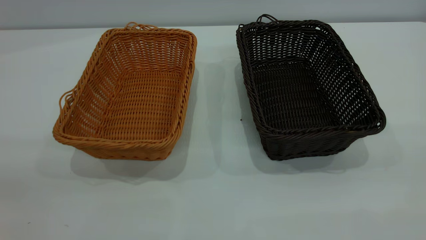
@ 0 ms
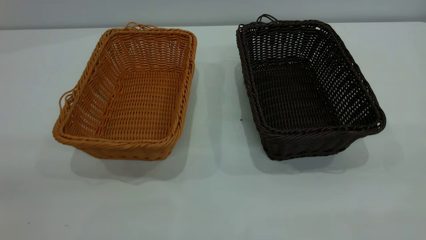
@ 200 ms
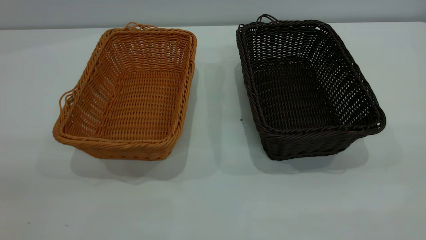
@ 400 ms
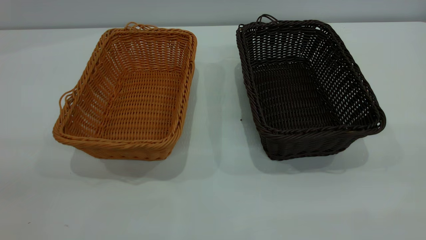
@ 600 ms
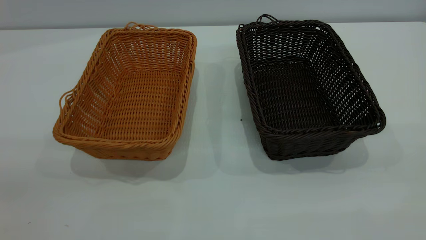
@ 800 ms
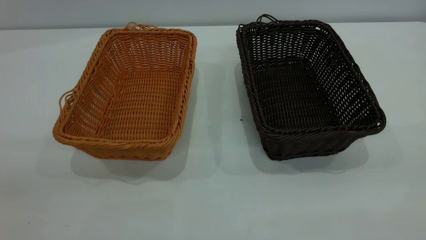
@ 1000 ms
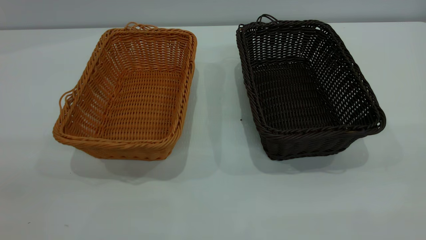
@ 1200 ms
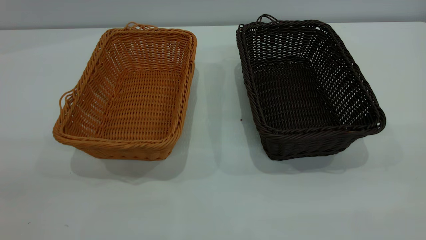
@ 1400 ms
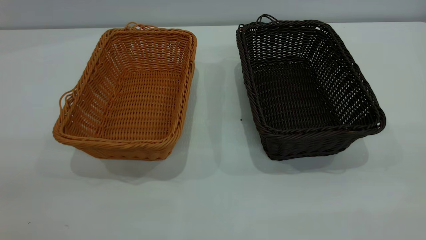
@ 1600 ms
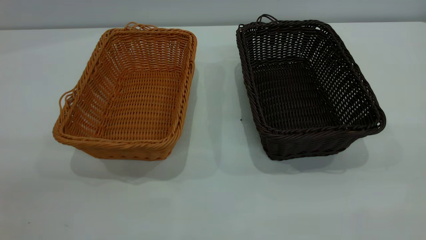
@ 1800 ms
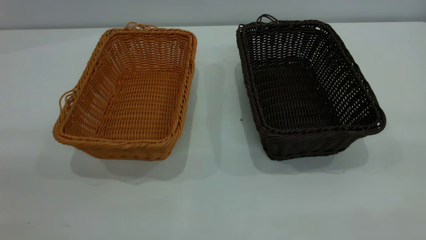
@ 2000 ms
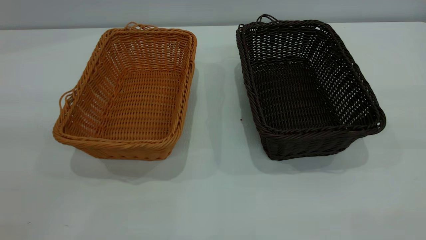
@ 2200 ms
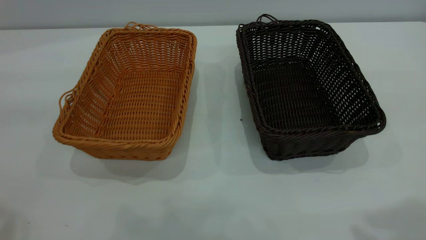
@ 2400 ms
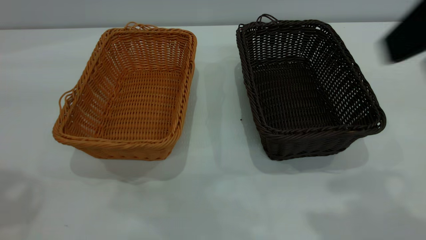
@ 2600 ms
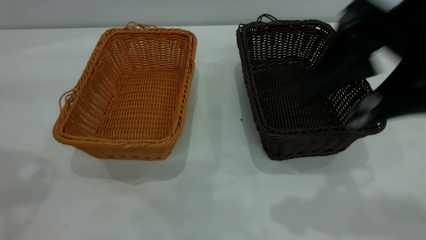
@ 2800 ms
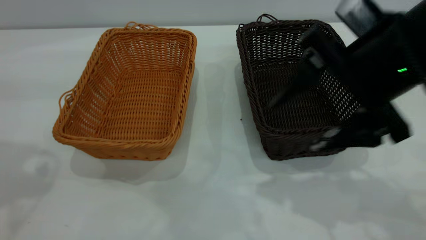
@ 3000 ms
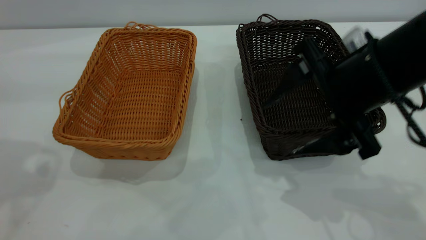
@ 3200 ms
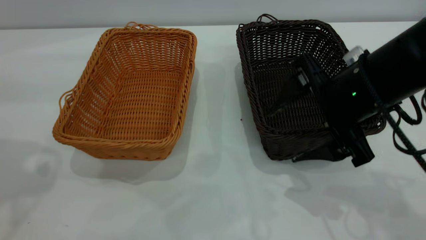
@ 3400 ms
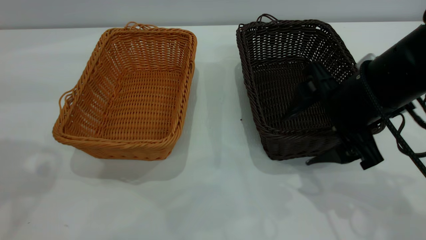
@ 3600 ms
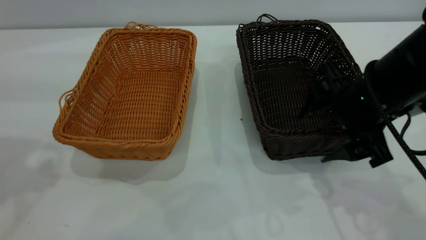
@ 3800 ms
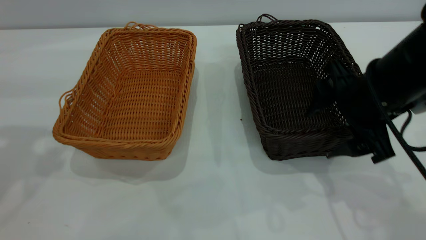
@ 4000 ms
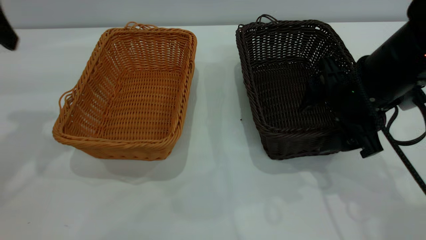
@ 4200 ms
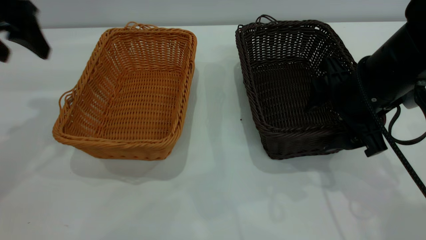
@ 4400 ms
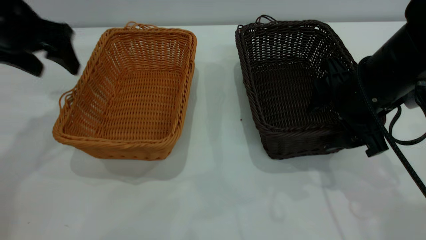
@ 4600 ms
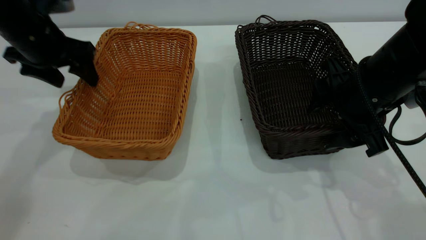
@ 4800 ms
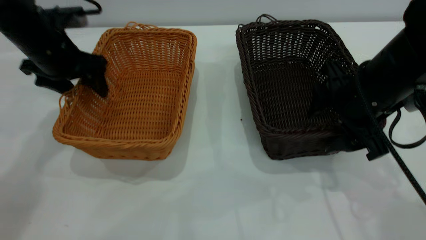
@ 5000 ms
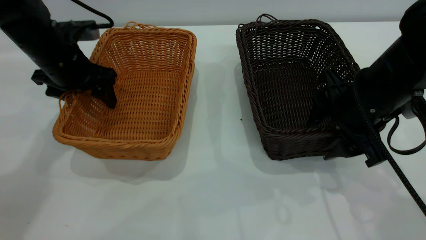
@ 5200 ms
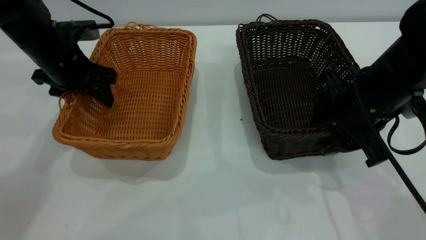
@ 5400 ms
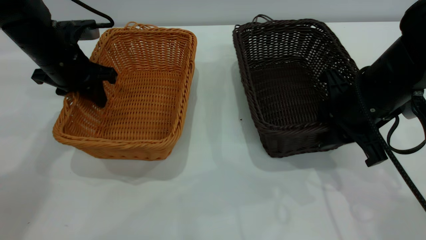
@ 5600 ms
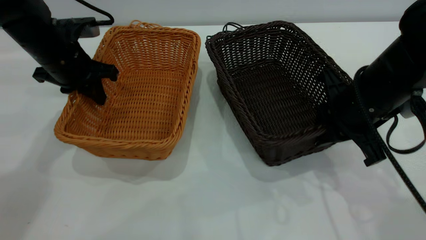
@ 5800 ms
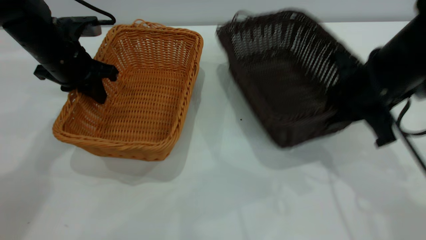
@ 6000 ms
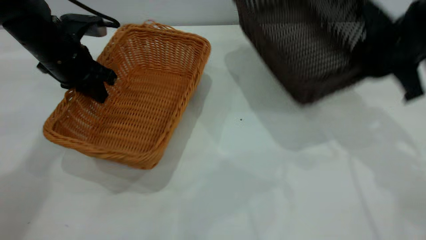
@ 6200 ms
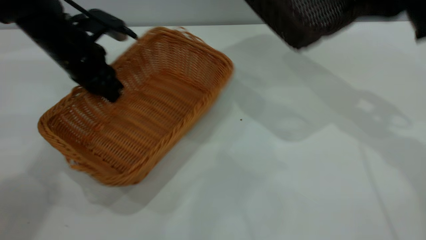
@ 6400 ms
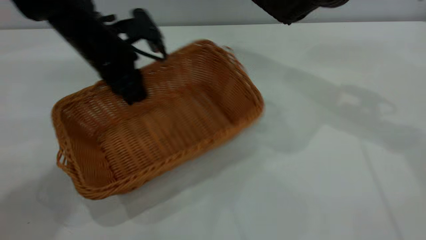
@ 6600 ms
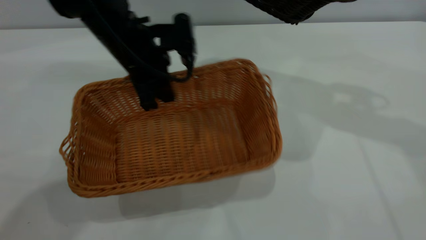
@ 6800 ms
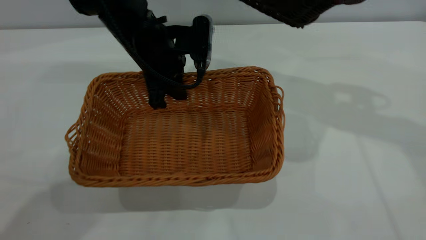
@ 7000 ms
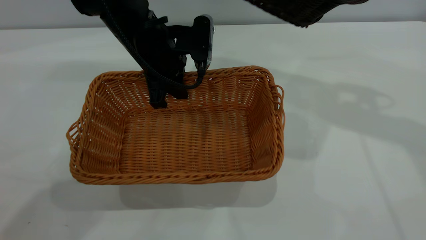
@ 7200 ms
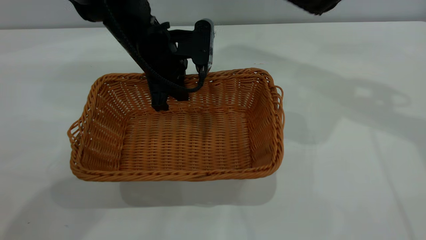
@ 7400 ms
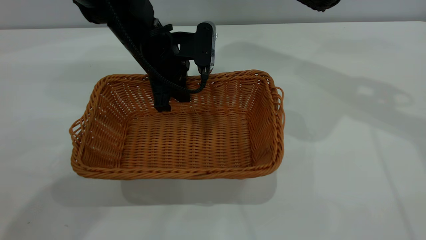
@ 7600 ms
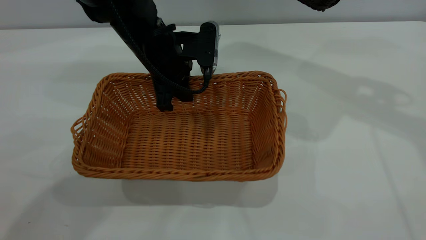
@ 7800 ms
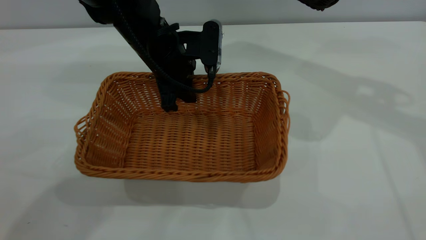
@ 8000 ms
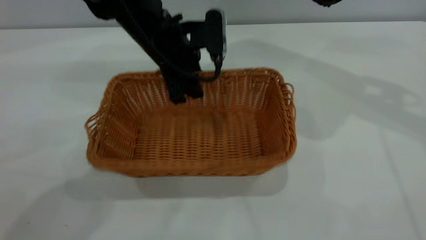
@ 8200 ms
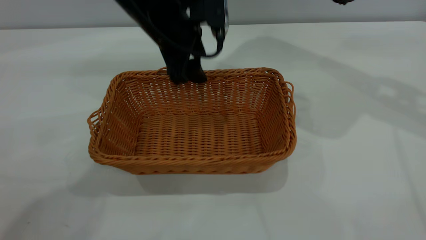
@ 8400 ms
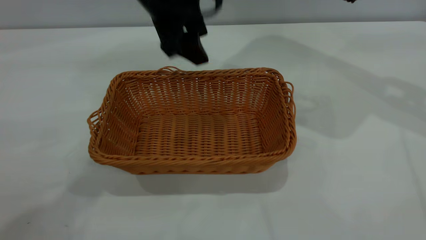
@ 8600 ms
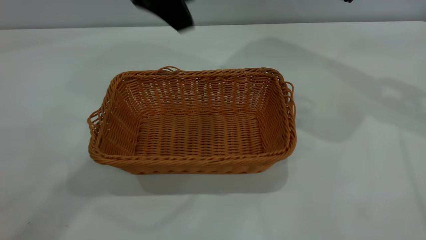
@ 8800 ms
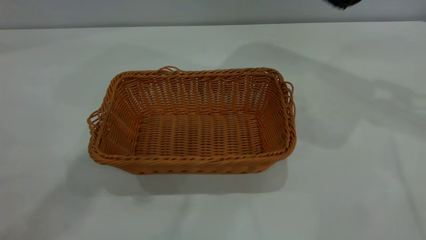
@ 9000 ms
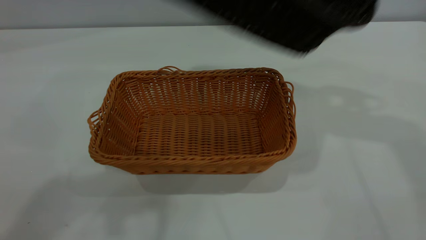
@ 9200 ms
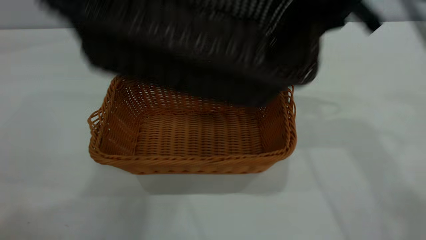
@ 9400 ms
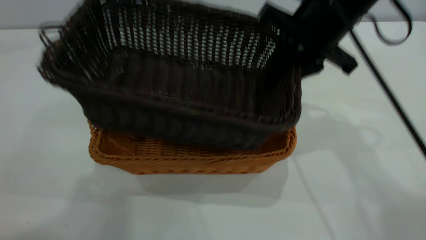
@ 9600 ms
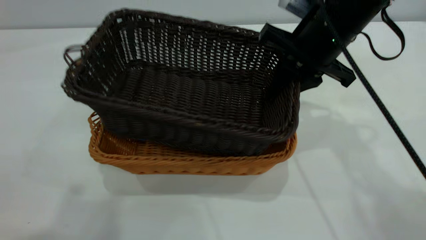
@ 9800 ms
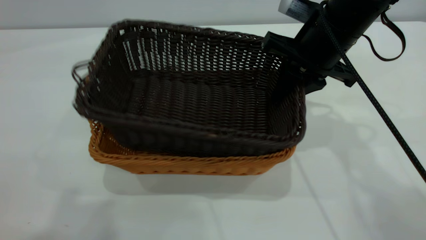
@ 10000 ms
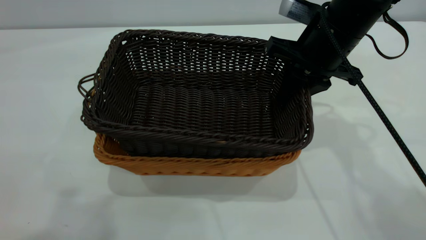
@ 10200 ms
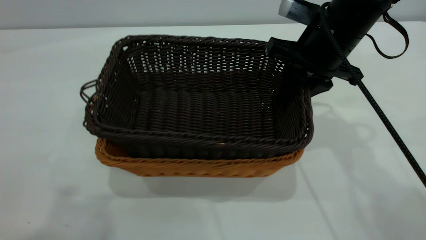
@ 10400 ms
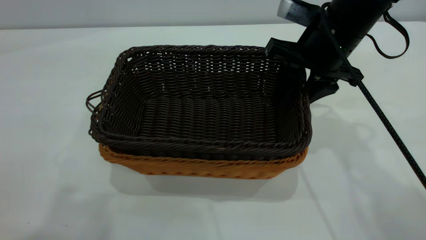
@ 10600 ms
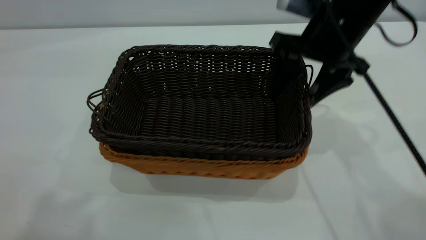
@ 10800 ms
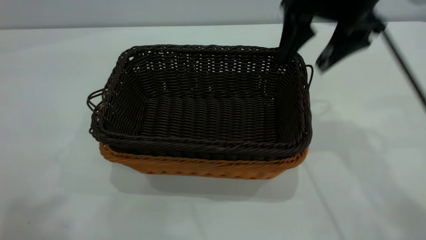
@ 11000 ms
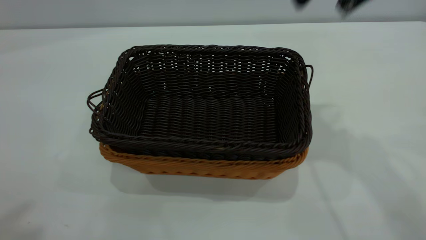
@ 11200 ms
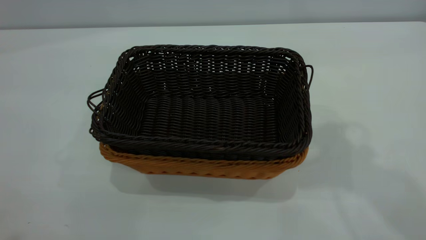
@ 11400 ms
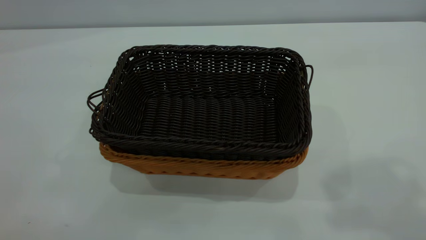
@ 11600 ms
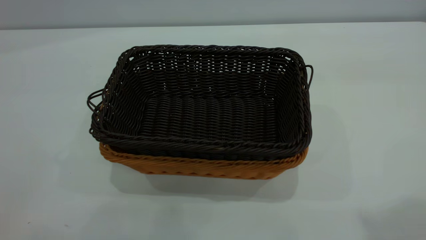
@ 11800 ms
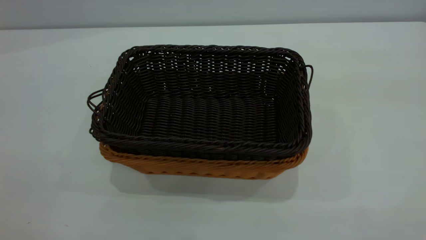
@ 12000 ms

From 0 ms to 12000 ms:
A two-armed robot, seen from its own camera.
Task of the whole recording: the left gripper grasp the brown basket and place it in the center of the table, the right gripper grasp the black basket and place it inside the brown one.
Step, from 0 ms to 6000 ms: Pick up the light basket with the right gripper.
Step, from 6200 ms to 8400 ms: Place the light-colored basket in the center.
Step, from 8600 ms to 10800 ms: Place the dark basket on top of the light basket.
From 0 ms to 1600 ms: Both grippers stay about where they are.
From 1600 ms to 3000 ms: The right gripper goes about 30 cm forward, downward and to the left.
From 3000 ms to 4400 ms: The right gripper moves downward and forward, about 10 cm. Meanwhile the left gripper travels forward and downward by roughly 15 cm.
From 4400 ms to 6000 ms: The left gripper travels downward and to the right by some 15 cm, and closes; the right gripper closes.
From 6000 ms to 7600 ms: The left gripper is displaced to the right by approximately 15 cm. The right gripper is displaced upward and forward by approximately 20 cm.
From 7600 ms to 9000 ms: The left gripper goes roughly 30 cm upward, and opens up.
From 9000 ms to 10400 ms: The right gripper heads downward and to the left, covering about 20 cm. The left gripper heads upward, backward and to the left, covering about 20 cm.
From 10400 ms to 12000 ms: The right gripper is displaced upward and backward by some 40 cm, and opens up; the left gripper is displaced backward and to the left by some 15 cm.
